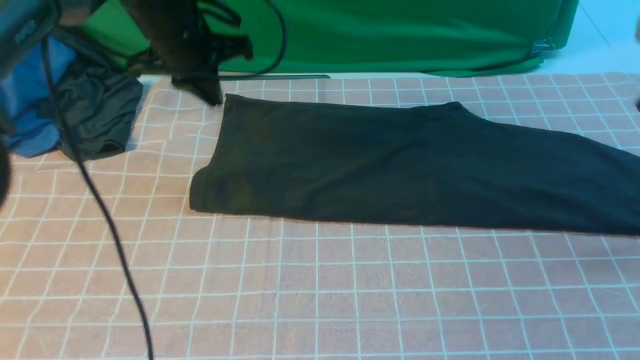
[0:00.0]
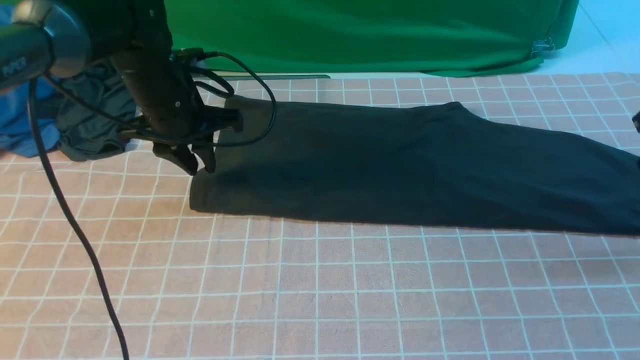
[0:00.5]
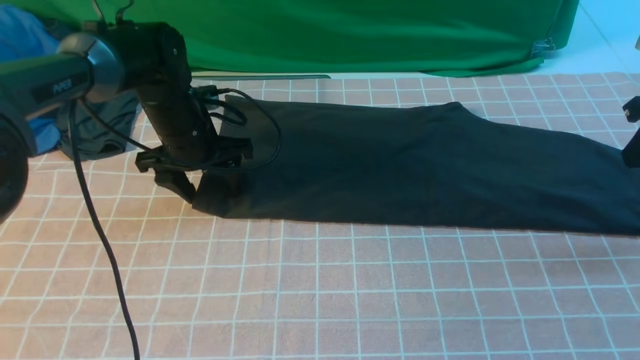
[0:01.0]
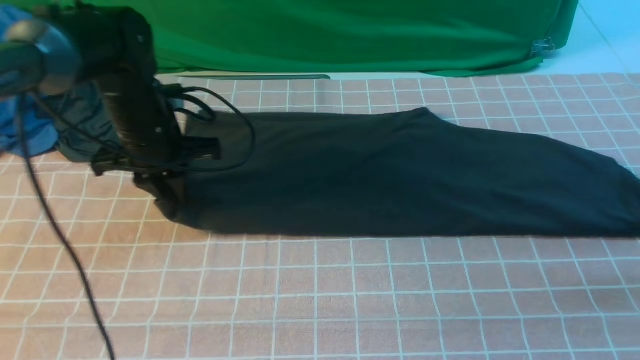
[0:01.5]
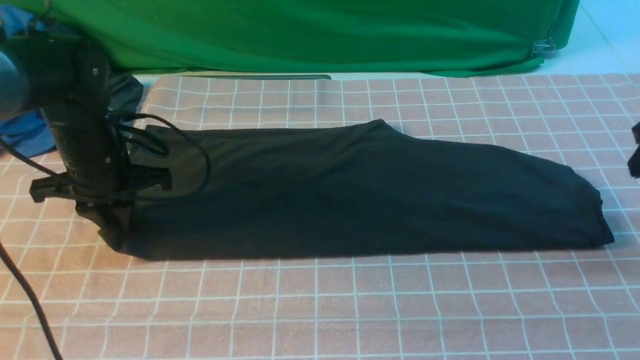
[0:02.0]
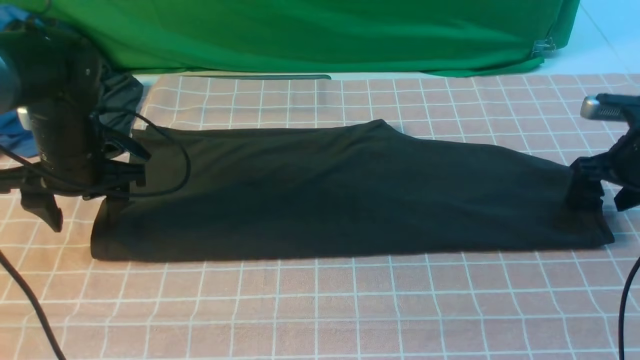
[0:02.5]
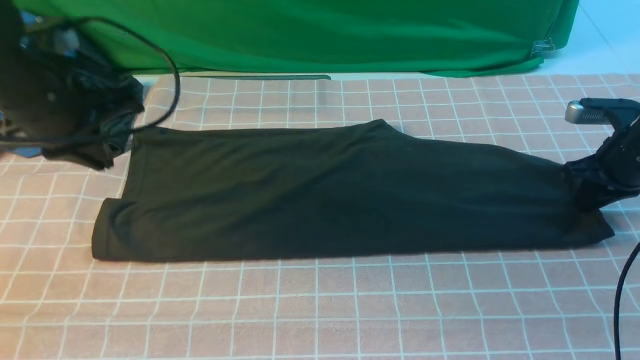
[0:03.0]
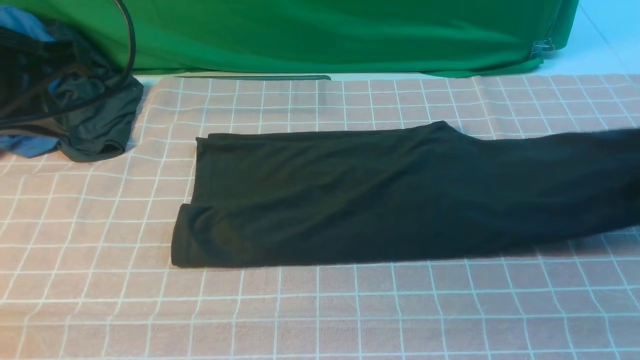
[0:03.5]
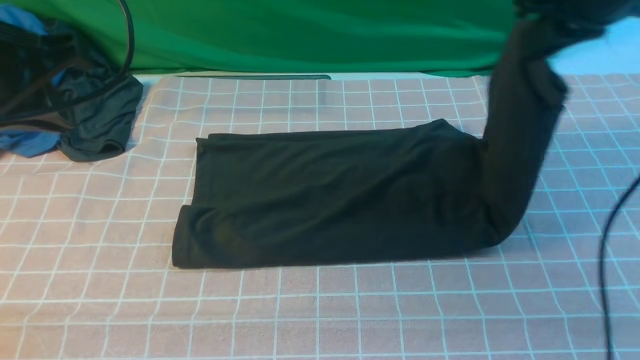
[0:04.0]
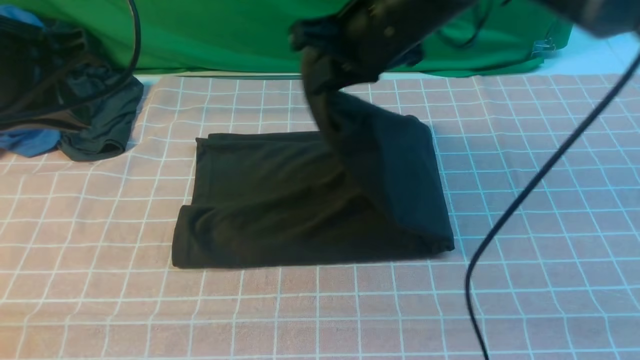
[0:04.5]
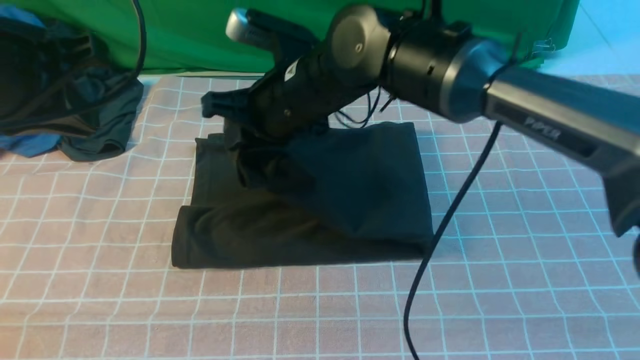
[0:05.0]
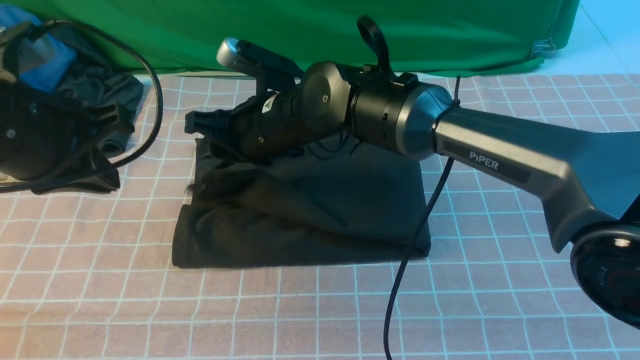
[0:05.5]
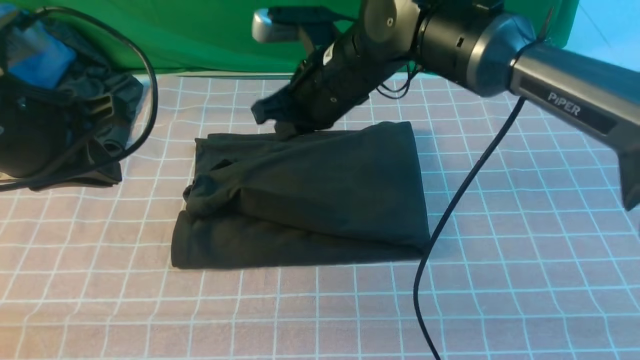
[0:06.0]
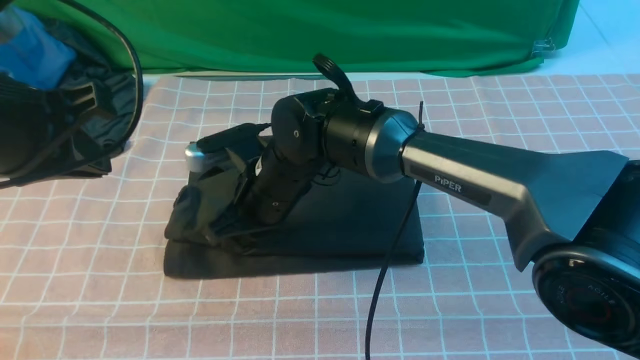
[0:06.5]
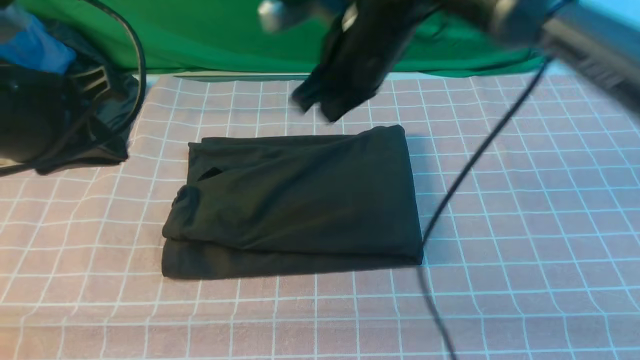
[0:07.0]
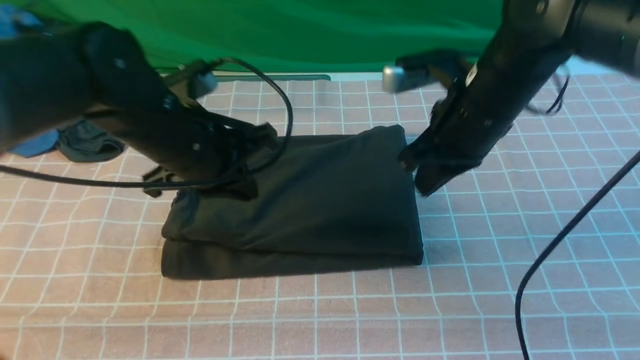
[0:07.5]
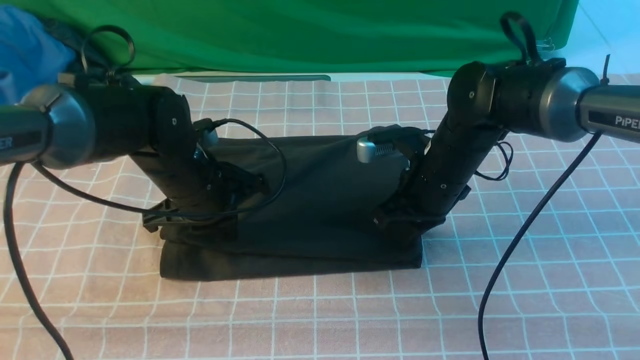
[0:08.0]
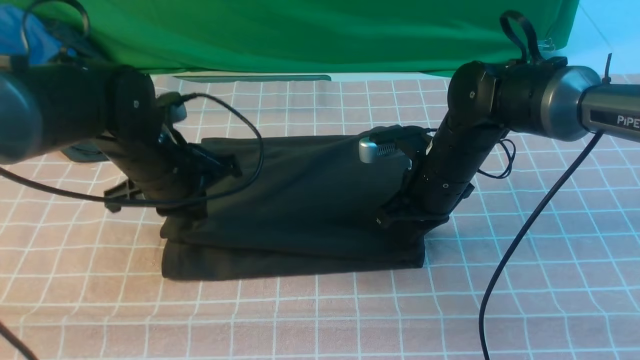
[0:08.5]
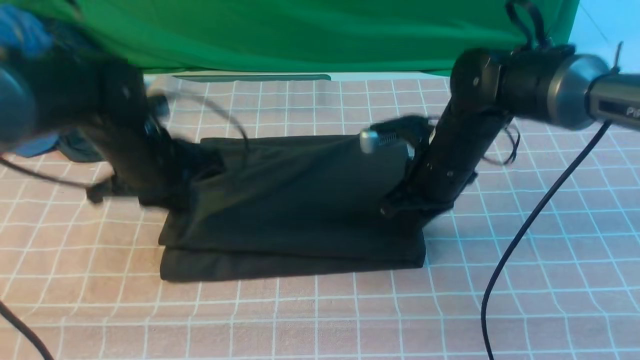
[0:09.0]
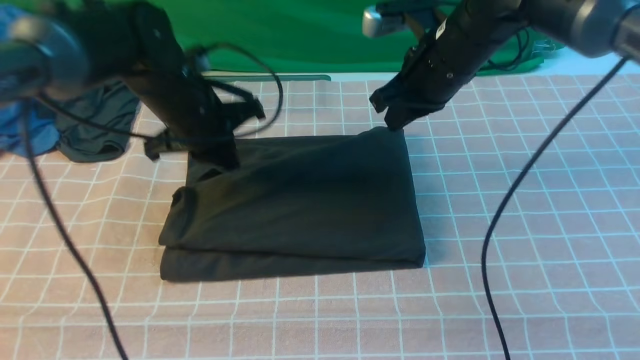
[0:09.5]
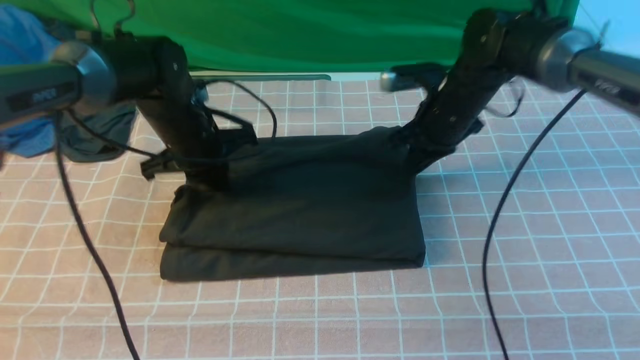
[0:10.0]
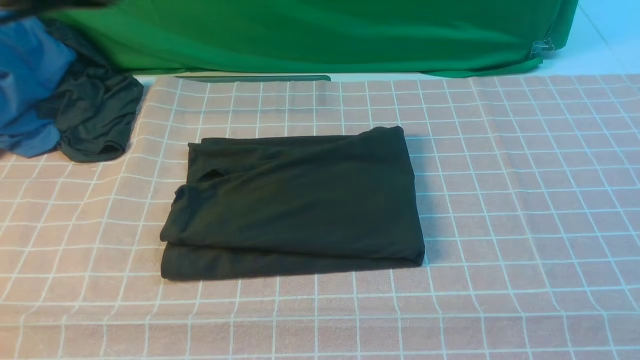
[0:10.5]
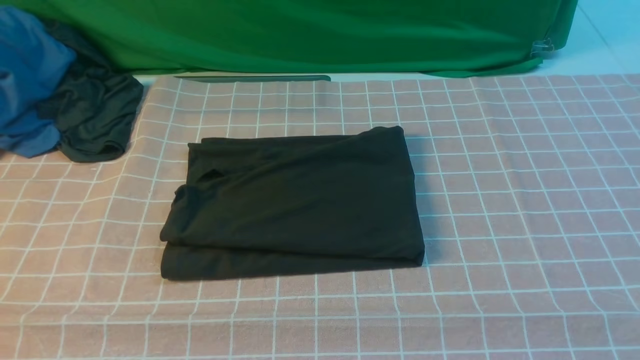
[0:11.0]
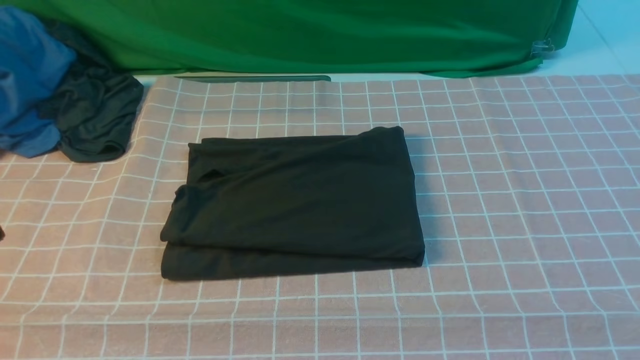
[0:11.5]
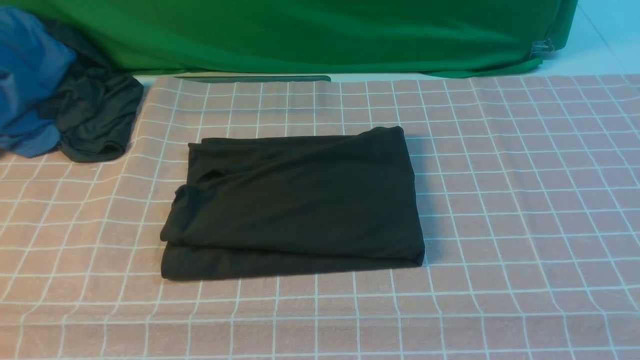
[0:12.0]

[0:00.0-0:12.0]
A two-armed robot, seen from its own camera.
Step, 0:00.0 to 0:03.0: use the right arm to clamp the right edge of the fabric.
Step, 0:03.5 to 0:05.5: use the right arm to drag the right edge of the fabric to the left and folds it over the left edge.
0:00.0 to 0:02.0: The left gripper travels backward, downward and to the left by some 15 cm, and opens its fingers; the right gripper opens its fingers.
0:02.0 to 0:04.0: The left gripper goes some 20 cm upward and backward, and closes up; the right gripper heads to the left and upward, covering about 20 cm, and closes up.
0:04.0 to 0:06.0: The right gripper goes about 25 cm to the left and downward, and opens, then closes once more.
0:06.0 to 0:08.0: The left gripper shifts roughly 20 cm downward, forward and to the right, while the right gripper is displaced to the right and downward by about 15 cm.
0:08.0 to 0:10.0: The right gripper heads forward and upward, covering roughly 10 cm, while the left gripper heads forward, covering approximately 5 cm.
0:10.0 to 0:12.0: The two grippers go some 40 cm backward.

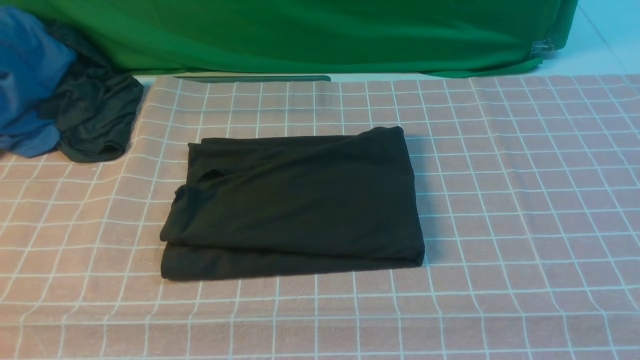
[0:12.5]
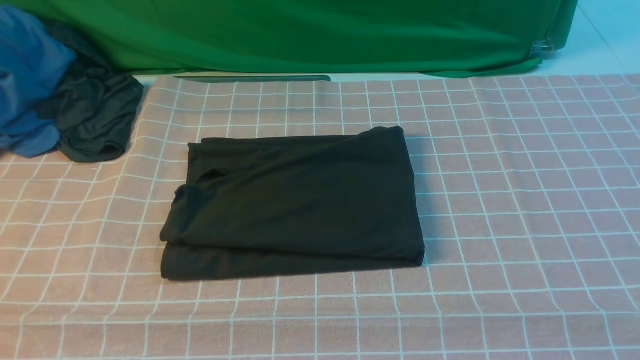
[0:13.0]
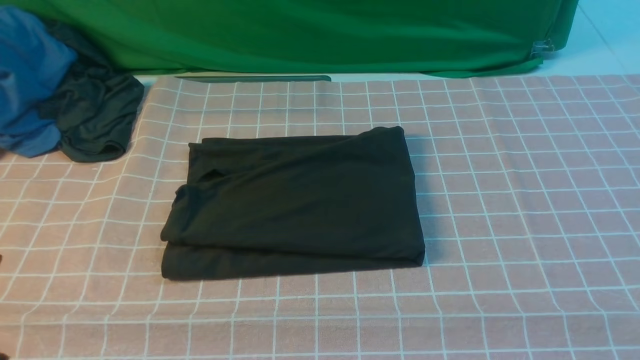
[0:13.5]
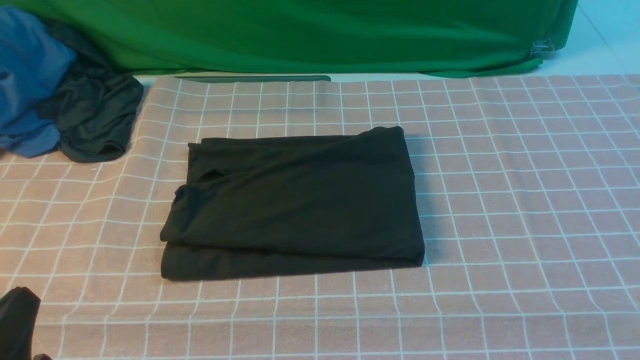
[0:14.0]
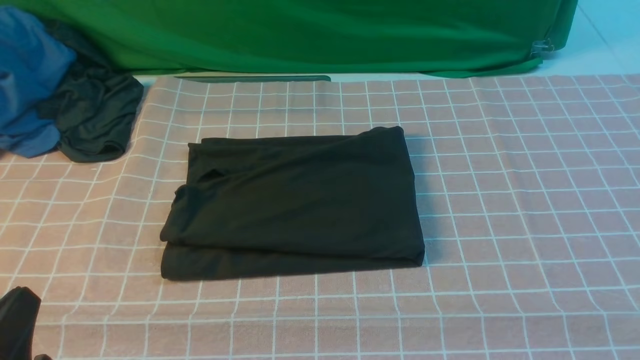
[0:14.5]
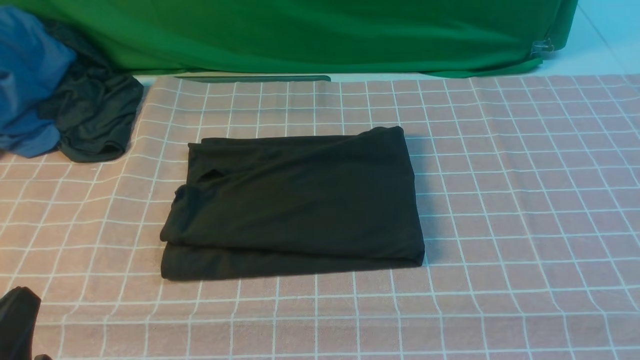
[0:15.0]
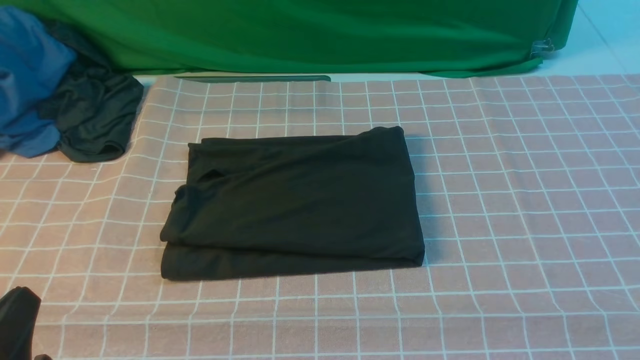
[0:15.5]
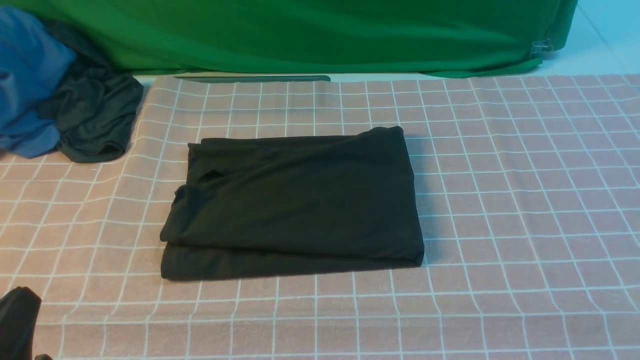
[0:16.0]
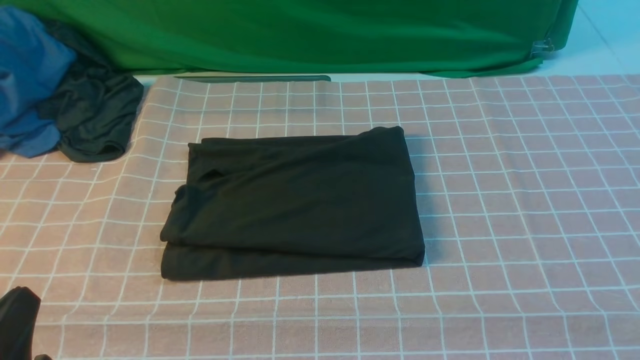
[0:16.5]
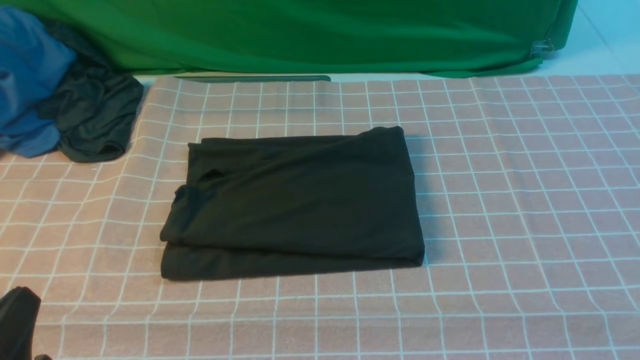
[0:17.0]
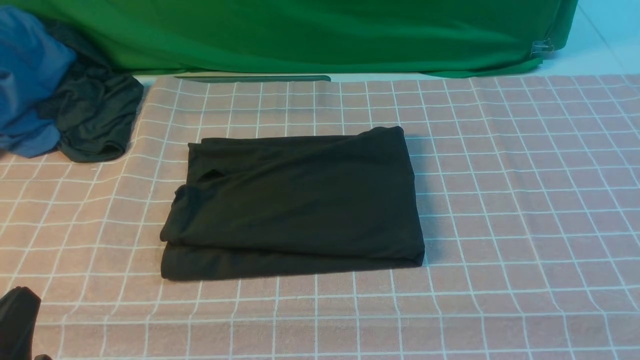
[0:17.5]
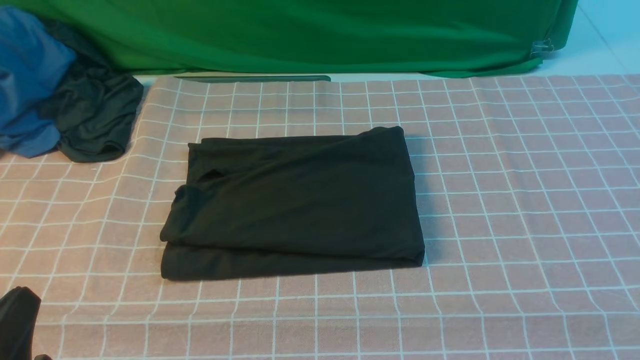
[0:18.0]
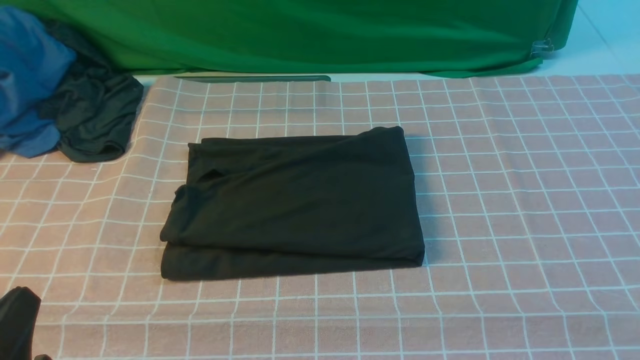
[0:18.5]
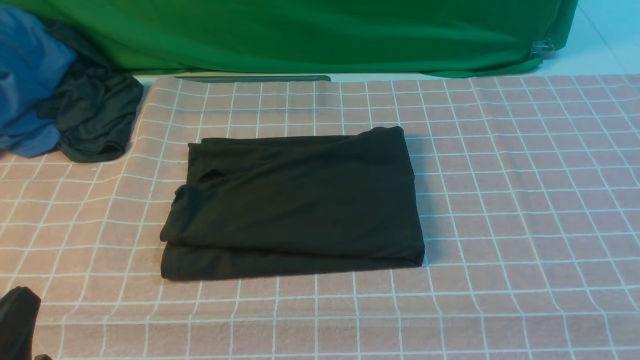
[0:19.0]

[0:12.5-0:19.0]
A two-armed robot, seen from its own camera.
0:12.5 to 0:14.5: The left gripper goes approximately 10 cm downward.
0:17.0 to 0:19.0: Both grippers stay put.
